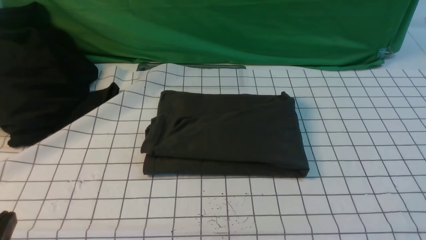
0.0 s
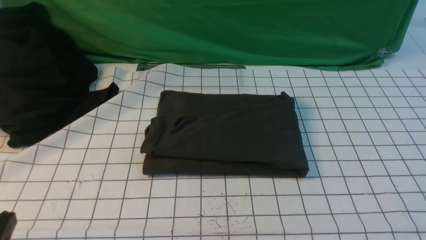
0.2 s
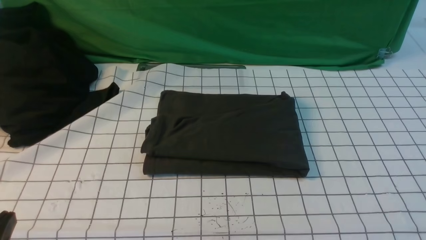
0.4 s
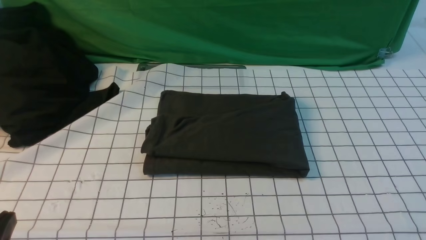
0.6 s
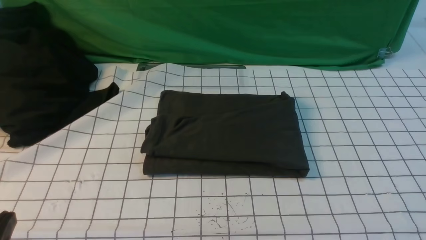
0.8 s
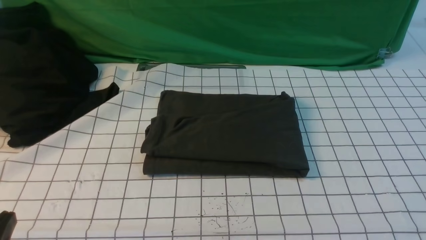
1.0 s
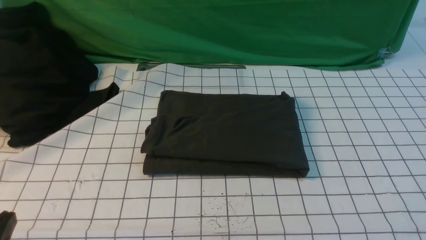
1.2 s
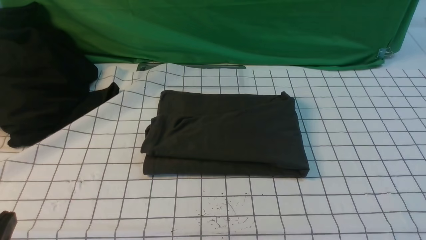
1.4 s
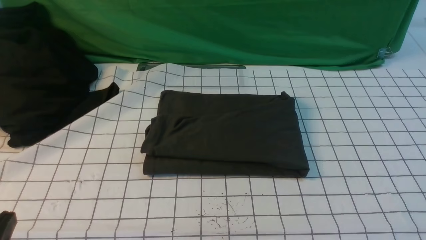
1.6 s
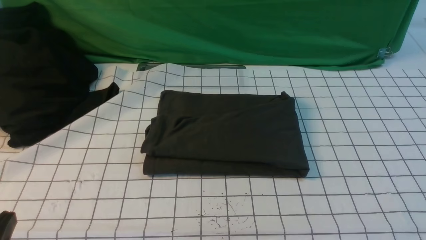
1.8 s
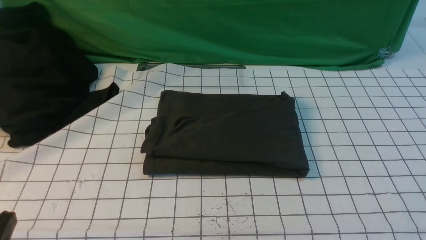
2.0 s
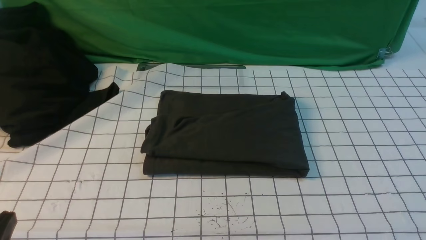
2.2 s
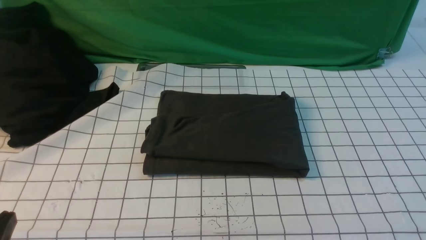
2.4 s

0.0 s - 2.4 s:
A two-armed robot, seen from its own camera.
1.2 s - 2.4 s: Both grippers stay about where they are.

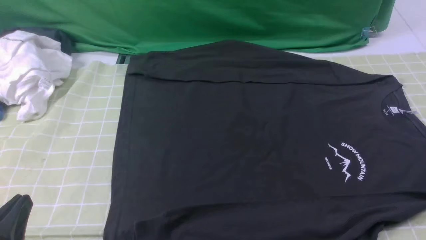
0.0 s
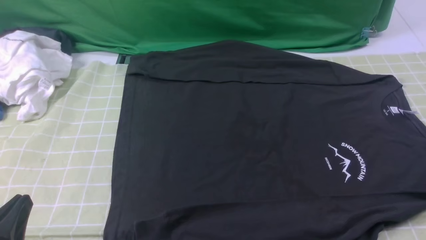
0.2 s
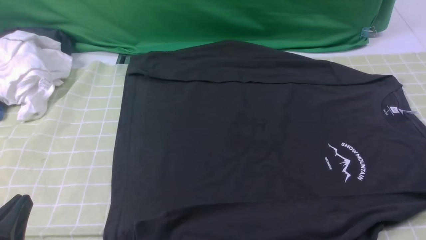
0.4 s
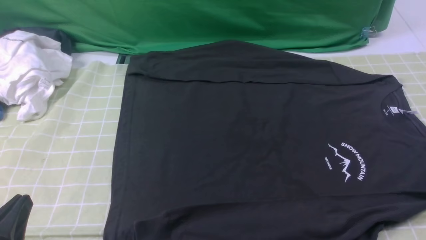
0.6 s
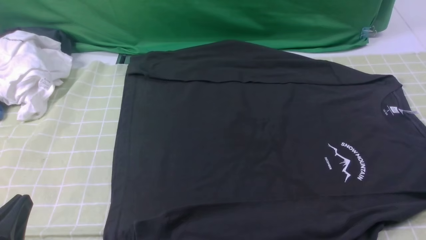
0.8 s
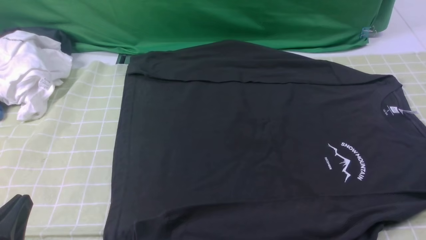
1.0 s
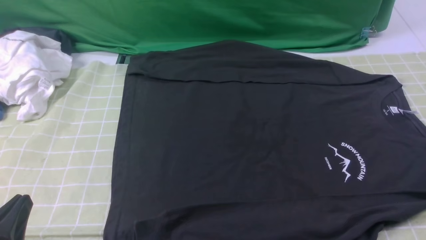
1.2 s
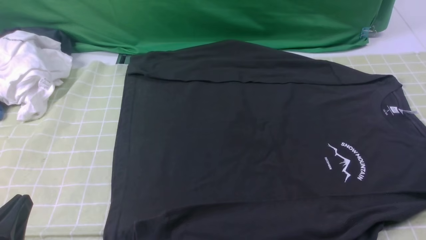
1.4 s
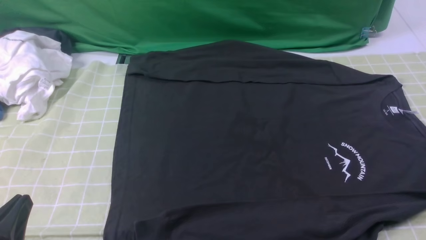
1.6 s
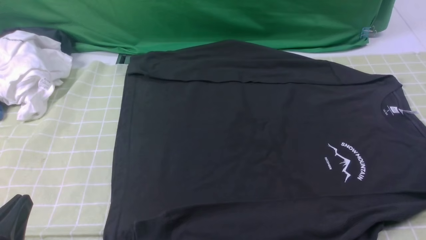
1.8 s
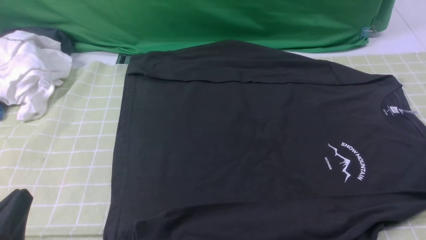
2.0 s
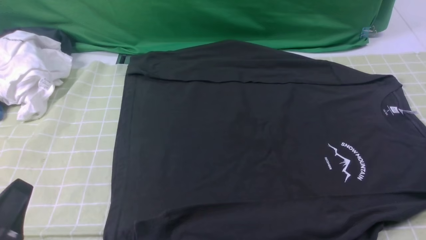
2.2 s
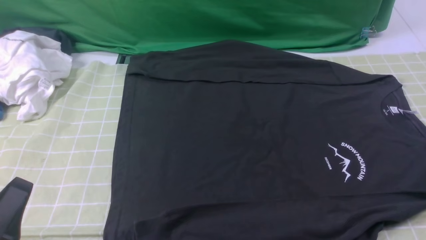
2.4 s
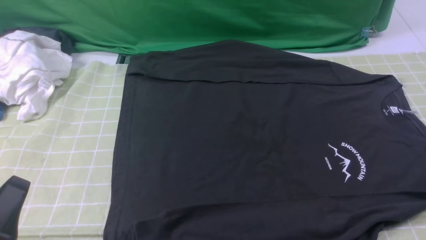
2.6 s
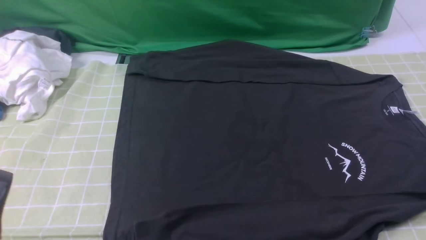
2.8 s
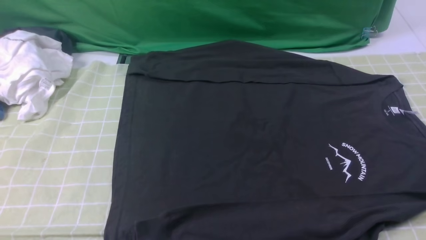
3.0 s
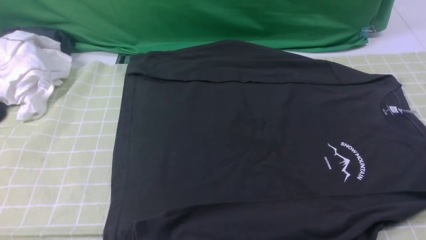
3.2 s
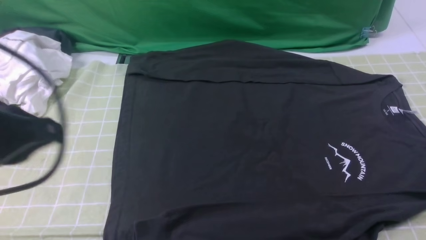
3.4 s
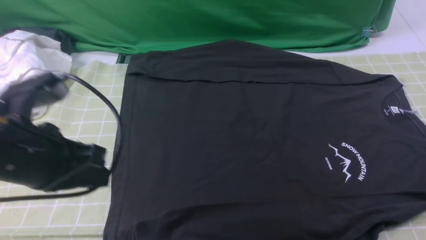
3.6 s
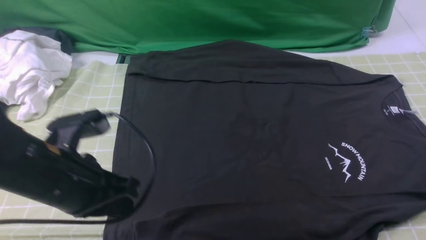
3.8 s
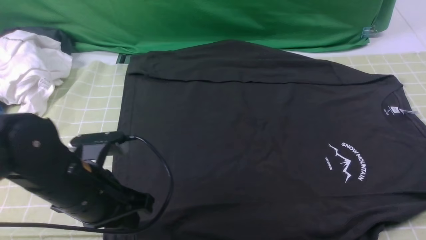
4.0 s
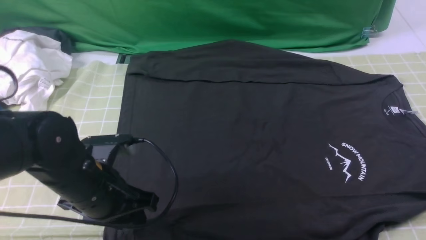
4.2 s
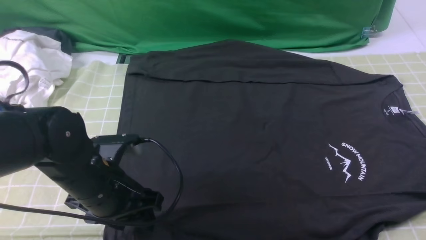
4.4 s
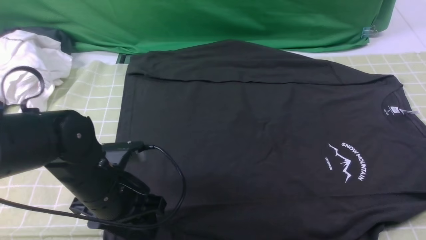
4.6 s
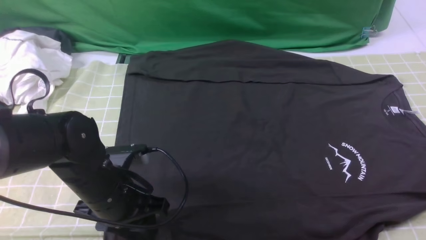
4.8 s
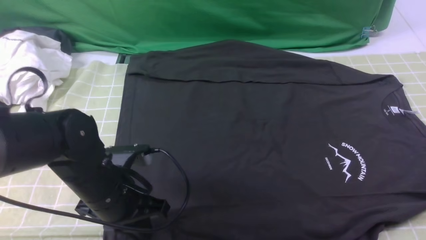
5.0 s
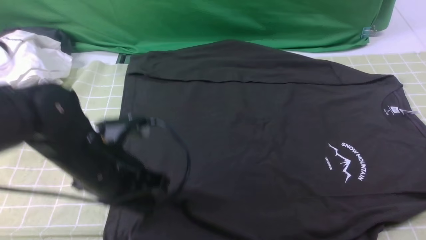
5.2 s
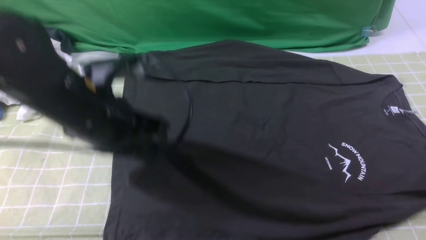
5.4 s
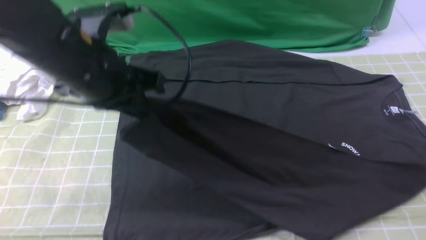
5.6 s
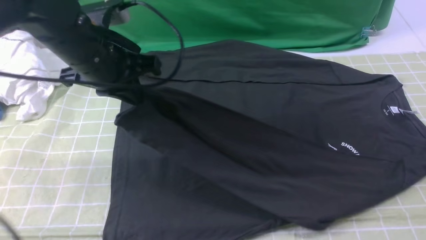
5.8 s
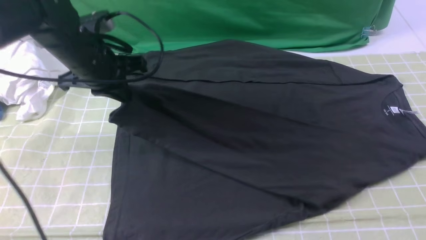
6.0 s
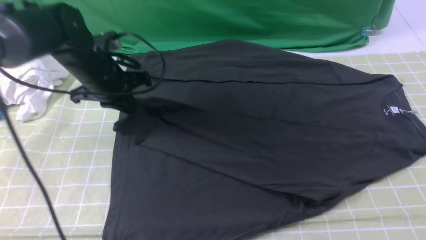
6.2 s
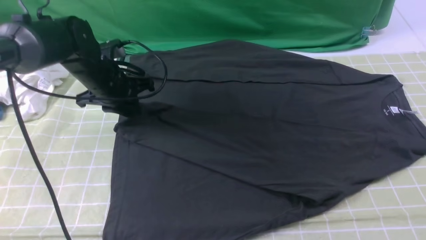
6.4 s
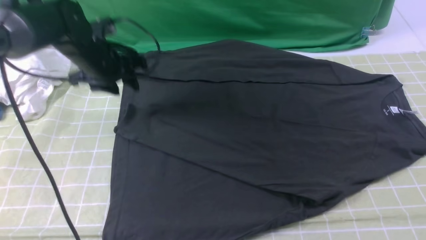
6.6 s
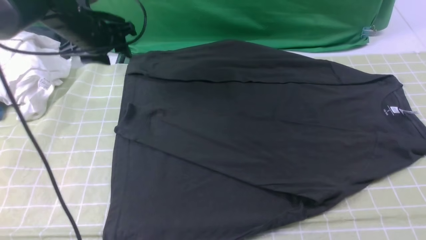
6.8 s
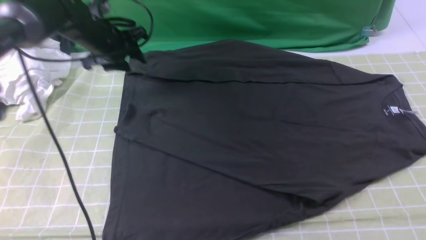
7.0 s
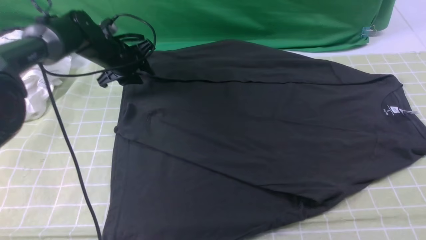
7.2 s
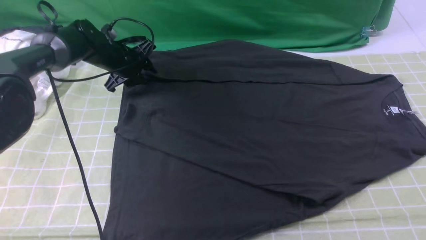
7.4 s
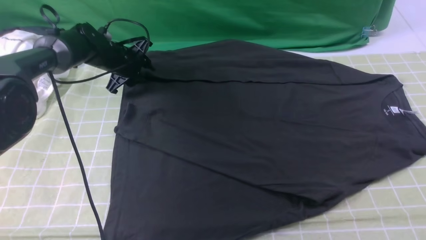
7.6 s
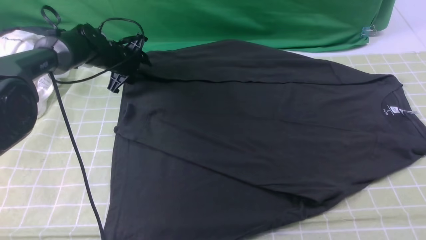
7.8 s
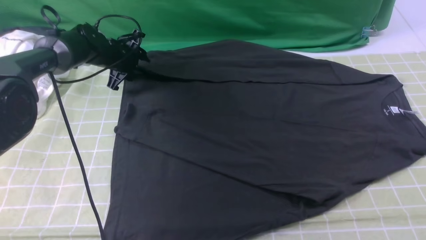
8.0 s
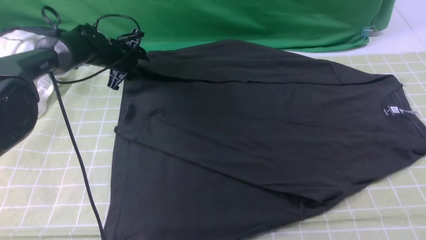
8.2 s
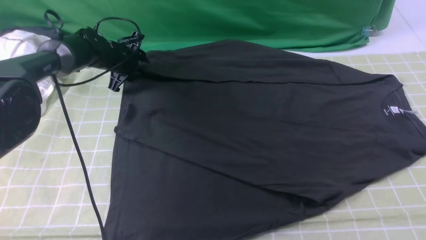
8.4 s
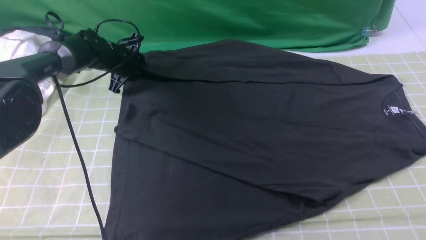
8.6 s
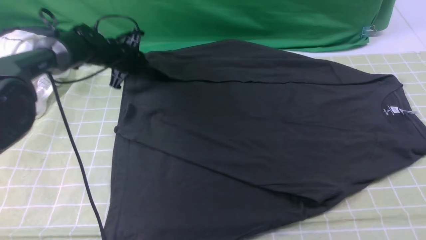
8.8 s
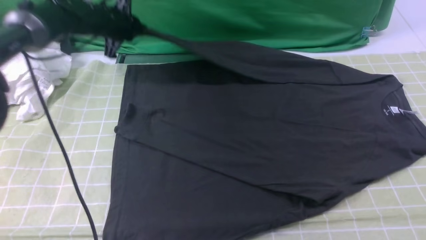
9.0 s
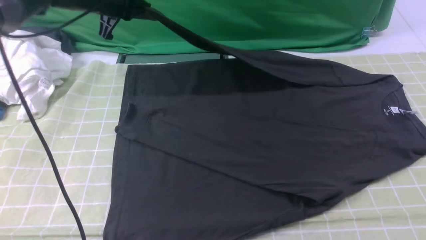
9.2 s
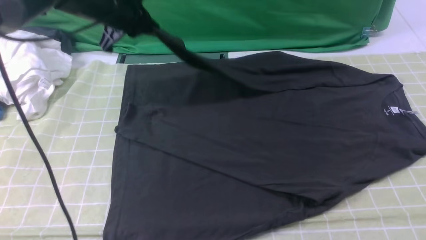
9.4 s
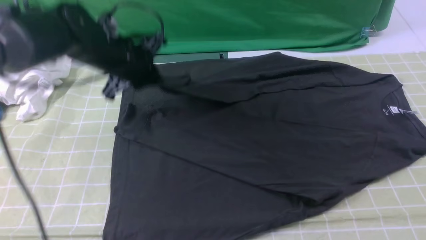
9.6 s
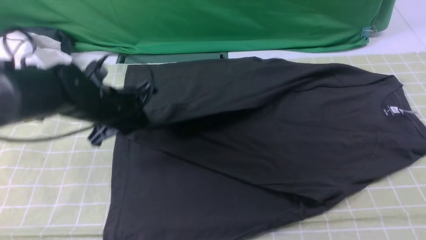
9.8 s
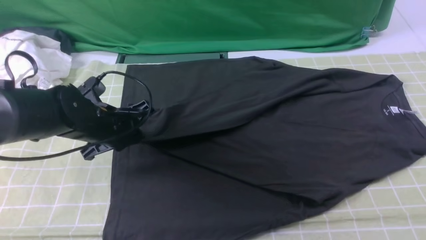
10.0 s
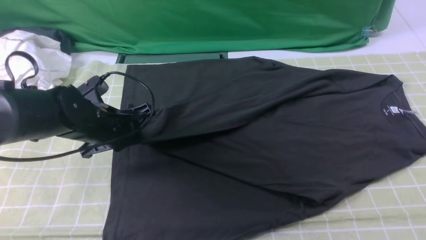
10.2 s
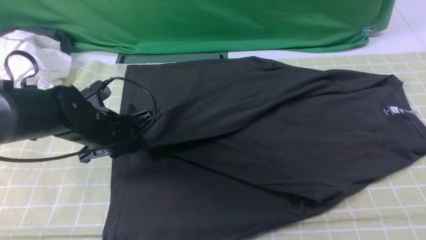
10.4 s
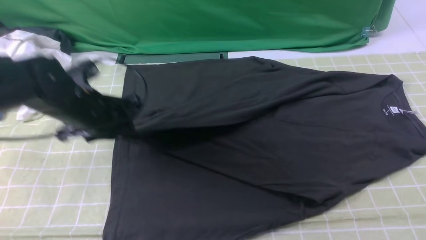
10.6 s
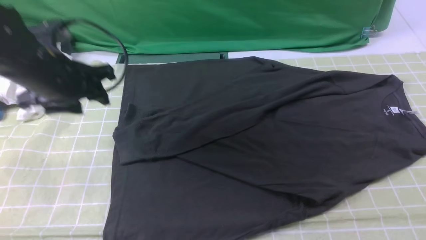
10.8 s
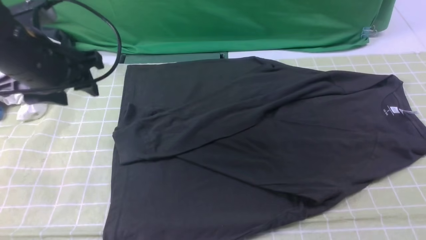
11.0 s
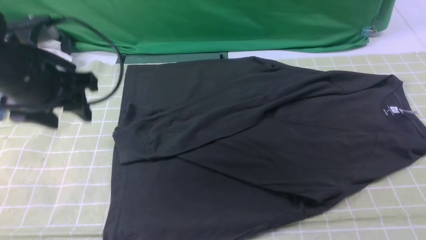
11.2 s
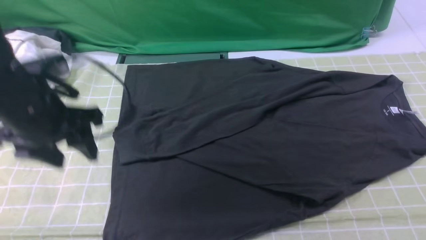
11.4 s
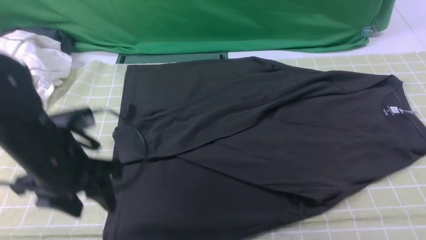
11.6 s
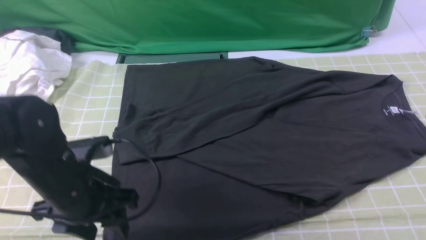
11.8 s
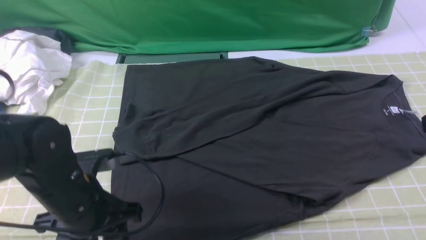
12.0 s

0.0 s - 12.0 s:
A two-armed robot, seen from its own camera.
Step, 0.0 s - 4.8 s: use the left arm to clamp the cuff closest to it.
Step, 5.2 s - 6.6 s: use the left arm to drag and place the cuff at the centered position on the left edge of the fabric.
Step, 6.8 s - 8.6 s: use the left arm to clamp the cuff farthest from it.
Step, 8.8 s - 10.8 s: use the left arm to drag and drop the cuff onto the cuff closest to the left arm.
0.0 s - 1.6 s: Both grippers stay about where they are.
1.6 s - 3.0 s: The left gripper goes about 10 cm upward.
3.0 s - 4.4 s: The left gripper moves forward, downward and to the right, approximately 20 cm, and opens up. The right gripper goes approximately 10 cm forward and upward.
4.4 s - 6.0 s: The left gripper heads forward and upward, covering about 20 cm, and closes.
6.0 s - 7.6 s: The left gripper is displaced forward and downward by roughly 20 cm, and opens.
7.6 s - 9.0 s: The left gripper moves upward, roughly 10 cm, and closes.
9.0 s - 10.4 s: The left gripper is displaced backward by roughly 20 cm.
10.4 s - 12.0 s: The left gripper heads backward, covering roughly 10 cm, and opens up.

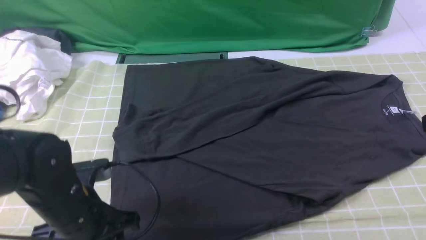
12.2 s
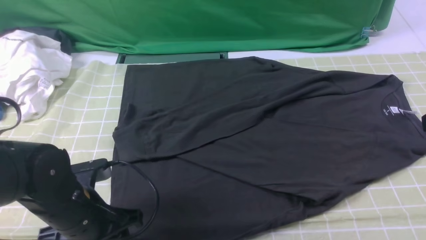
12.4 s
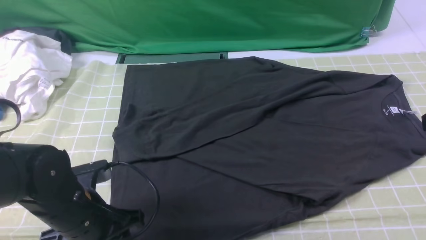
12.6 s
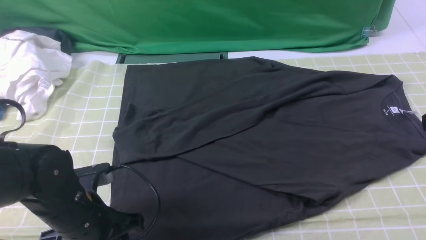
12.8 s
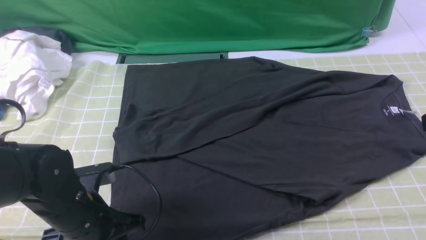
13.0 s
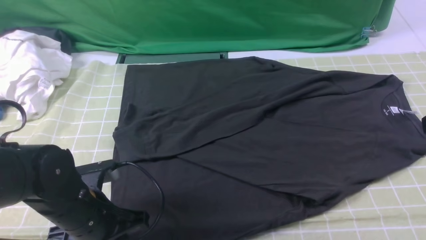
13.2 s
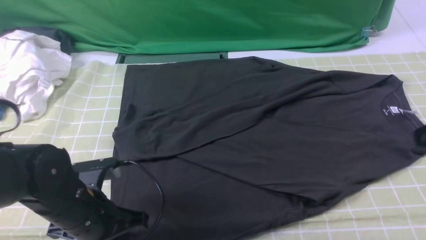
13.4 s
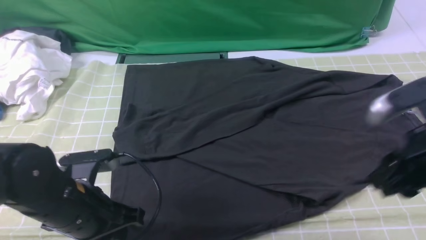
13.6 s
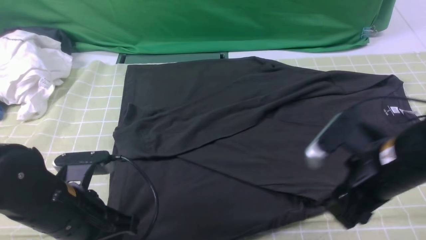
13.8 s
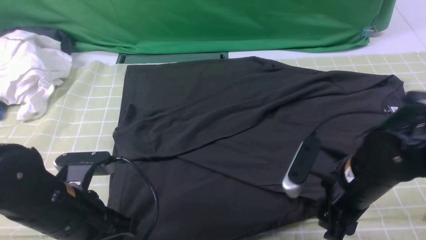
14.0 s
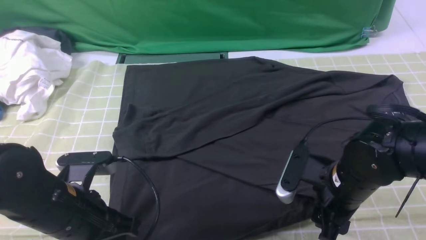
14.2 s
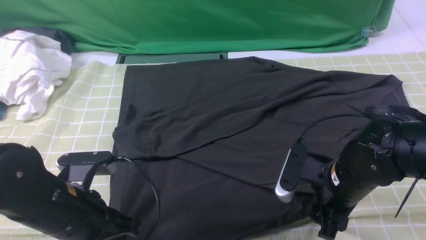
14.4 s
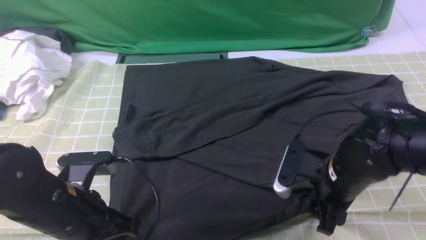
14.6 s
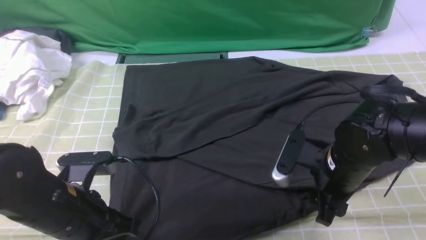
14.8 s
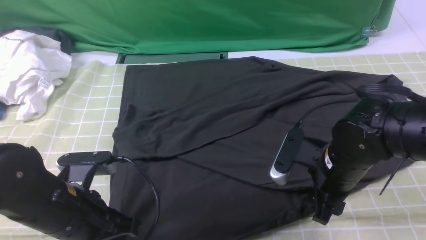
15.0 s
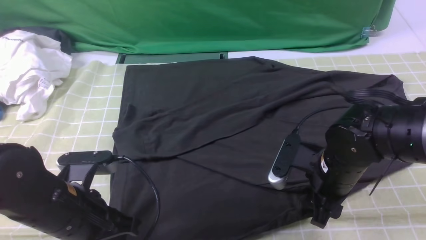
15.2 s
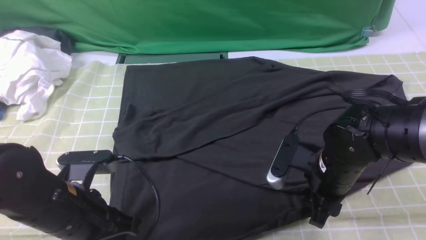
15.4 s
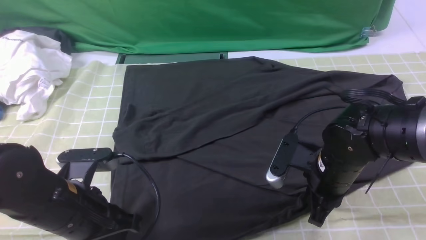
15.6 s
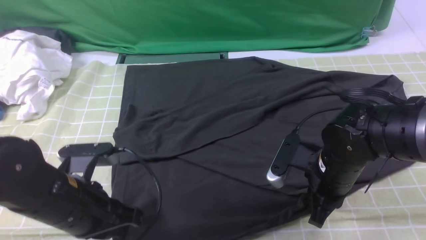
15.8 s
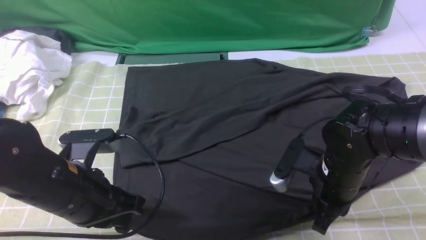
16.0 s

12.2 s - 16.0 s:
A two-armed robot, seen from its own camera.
12.2 s - 13.4 s: The left gripper closes.
13.4 s - 14.8 s: The right gripper heads downward and to the left, covering some 20 cm.
14.8 s - 16.0 s: The right gripper closes its fingers.
